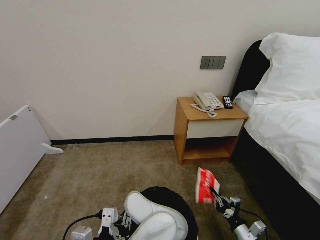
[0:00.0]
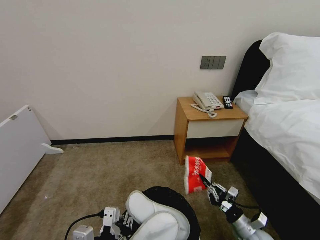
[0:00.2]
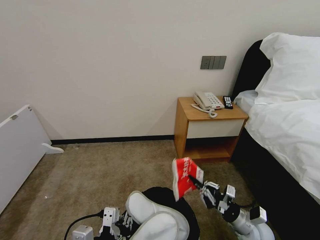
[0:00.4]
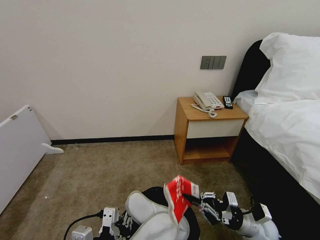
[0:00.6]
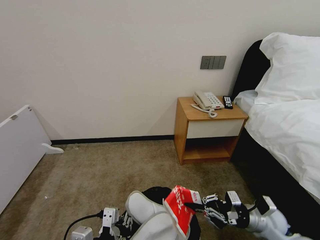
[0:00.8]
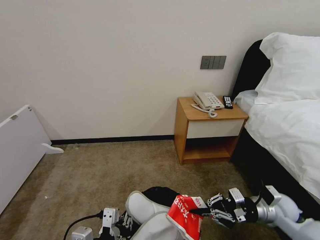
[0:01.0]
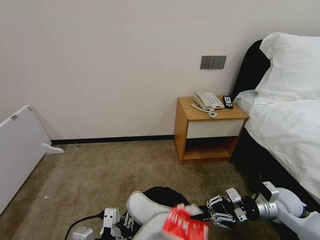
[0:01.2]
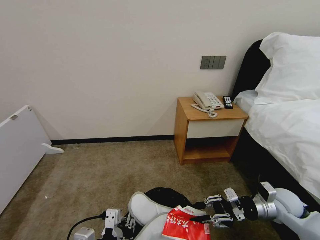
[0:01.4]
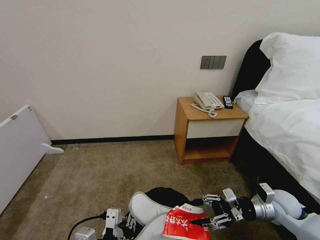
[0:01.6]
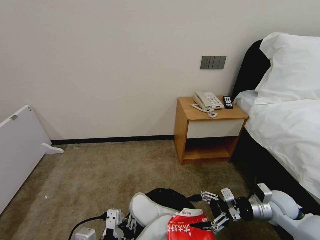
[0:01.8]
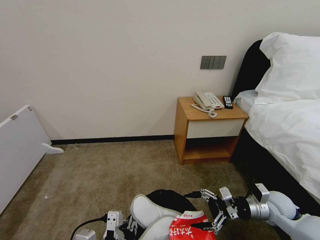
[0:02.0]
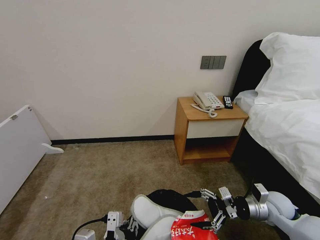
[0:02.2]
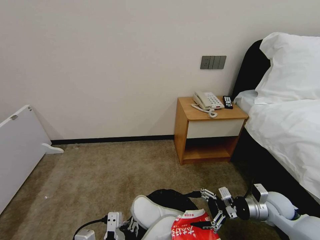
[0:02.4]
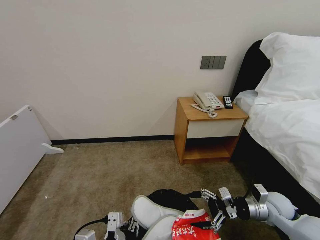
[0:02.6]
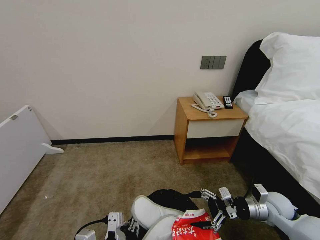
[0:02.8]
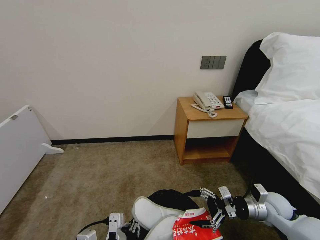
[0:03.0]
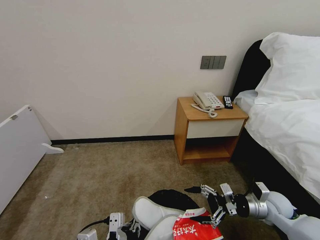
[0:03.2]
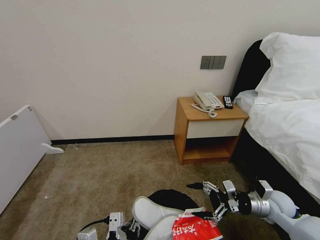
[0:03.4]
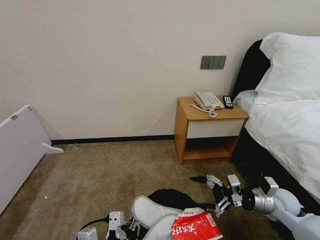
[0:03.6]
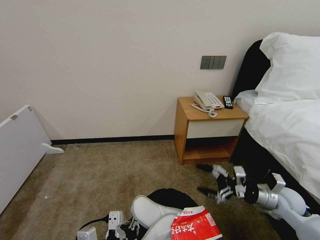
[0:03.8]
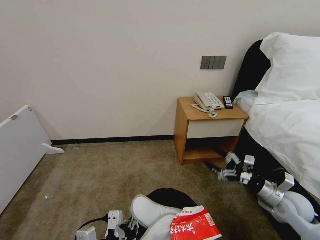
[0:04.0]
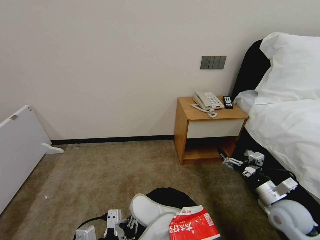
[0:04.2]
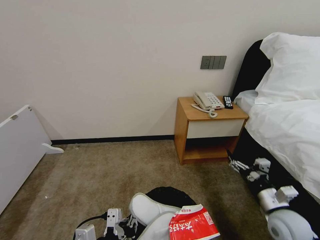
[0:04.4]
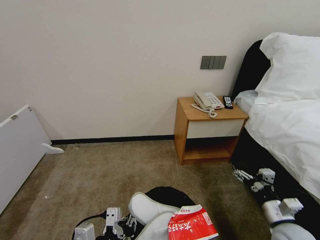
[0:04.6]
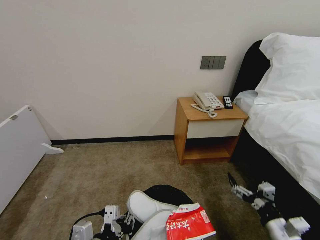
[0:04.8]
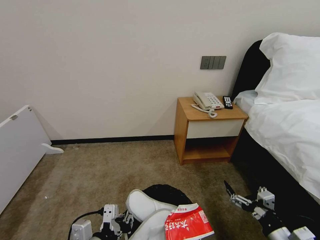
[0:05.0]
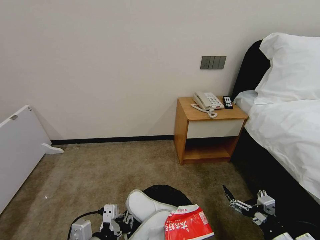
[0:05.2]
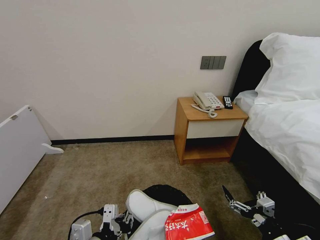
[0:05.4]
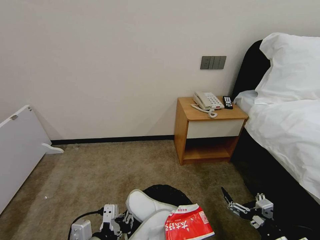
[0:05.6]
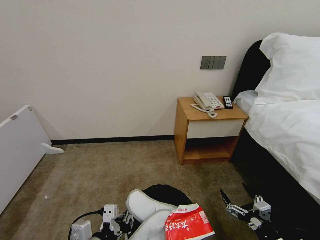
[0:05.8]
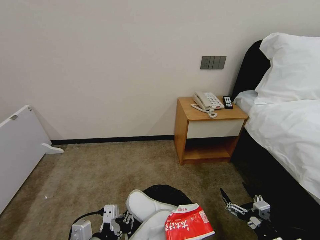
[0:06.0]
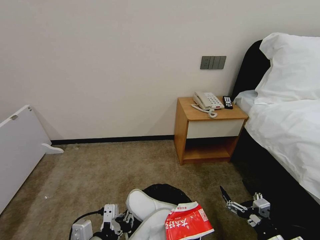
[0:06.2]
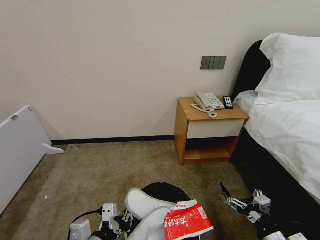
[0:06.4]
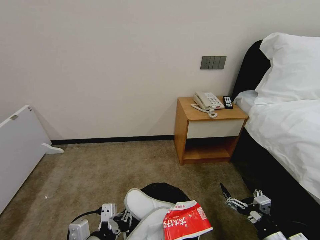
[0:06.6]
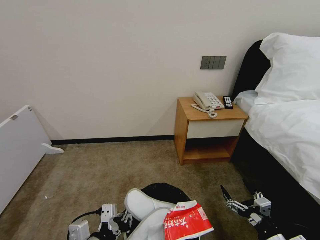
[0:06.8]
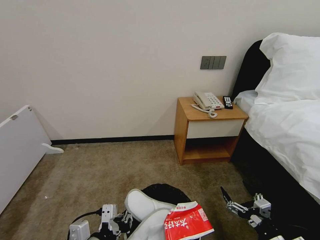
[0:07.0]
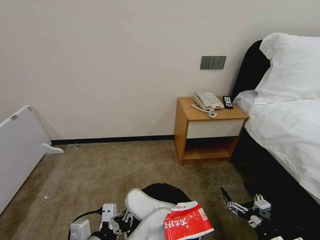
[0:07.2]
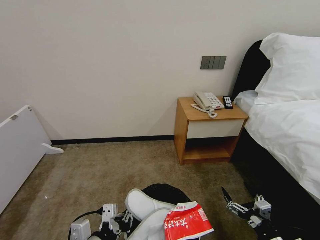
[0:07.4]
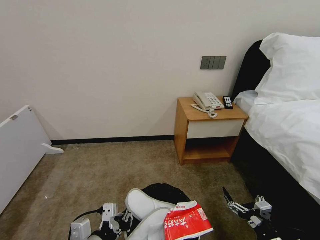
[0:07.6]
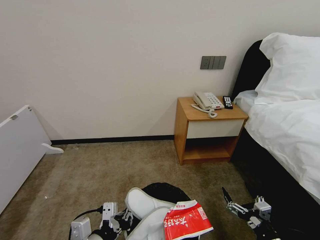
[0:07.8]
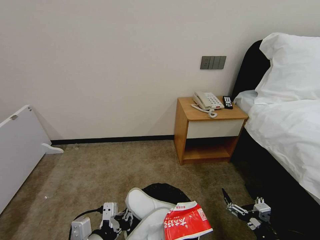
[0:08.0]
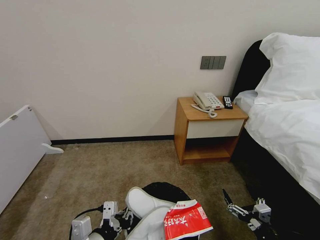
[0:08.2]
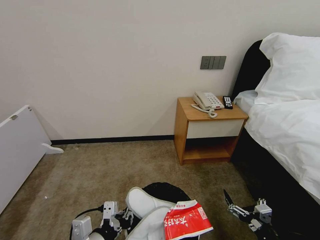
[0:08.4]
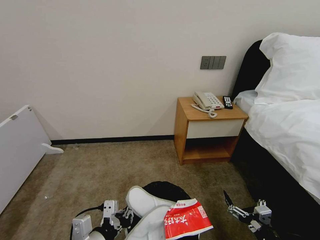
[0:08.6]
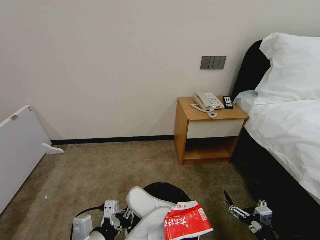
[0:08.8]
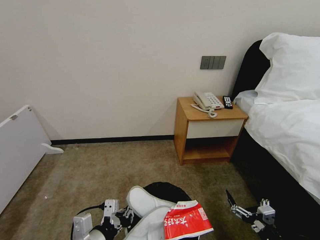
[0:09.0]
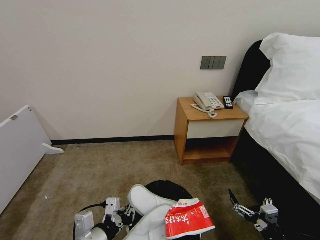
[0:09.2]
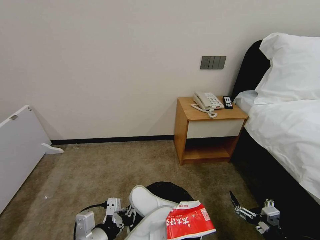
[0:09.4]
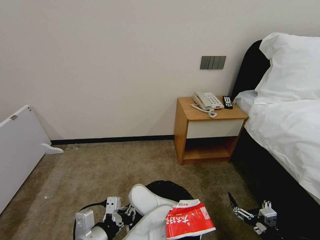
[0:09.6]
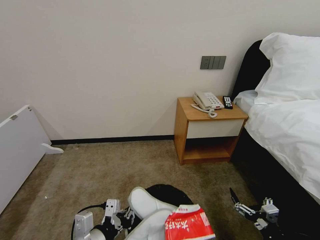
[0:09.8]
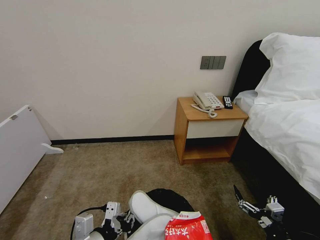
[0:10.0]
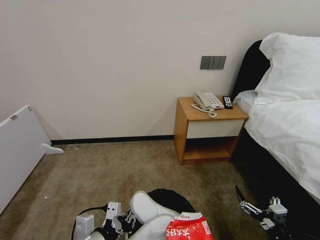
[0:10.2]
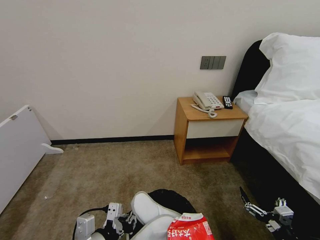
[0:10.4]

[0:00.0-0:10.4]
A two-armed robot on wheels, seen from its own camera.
Task of the whole recording: Pick up the trash bin, then pick up the garbage from the floor and place it into the trash bin.
0:00.0 to 0:01.4: The right gripper travels upward and forward by some 20 cm.
0:01.4 to 0:03.0: The right gripper opens up.
0:03.0 to 0:04.4: The right gripper travels backward by approximately 5 cm.
0:04.4 to 0:06.0: The right gripper goes about 15 cm backward.
0:06.0 to 0:10.4: The grippers make only small movements.
